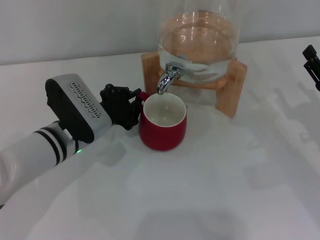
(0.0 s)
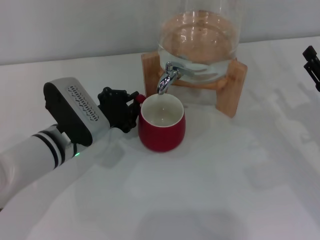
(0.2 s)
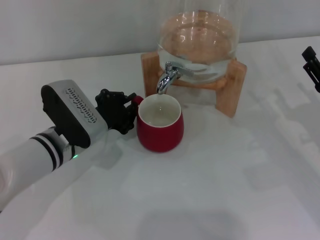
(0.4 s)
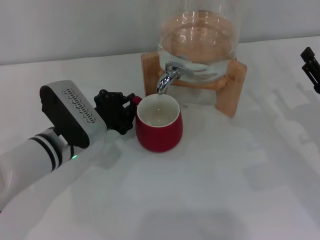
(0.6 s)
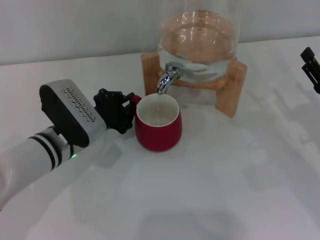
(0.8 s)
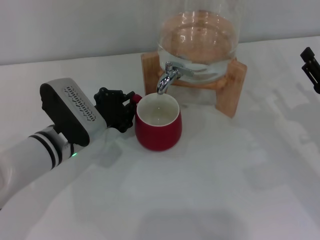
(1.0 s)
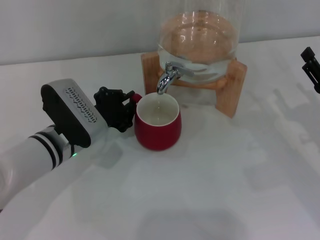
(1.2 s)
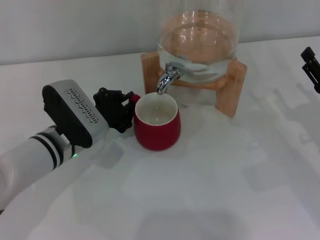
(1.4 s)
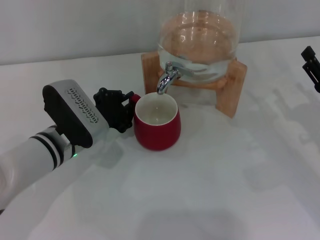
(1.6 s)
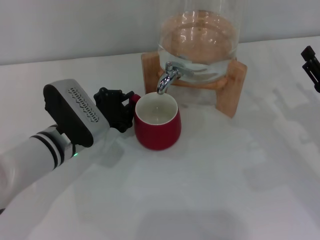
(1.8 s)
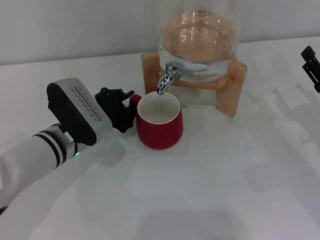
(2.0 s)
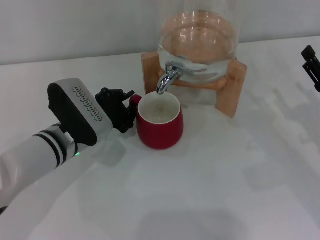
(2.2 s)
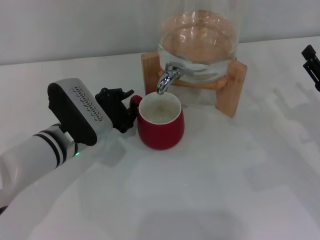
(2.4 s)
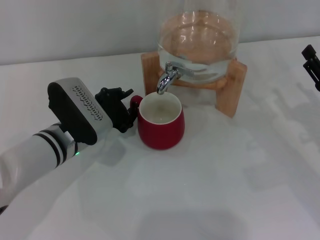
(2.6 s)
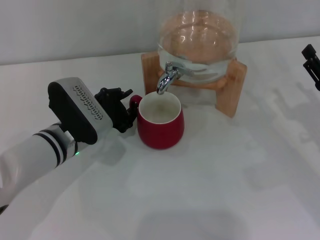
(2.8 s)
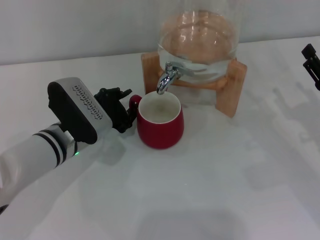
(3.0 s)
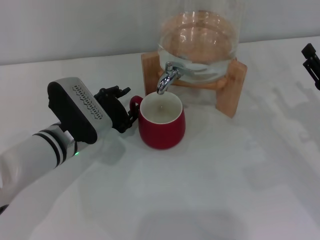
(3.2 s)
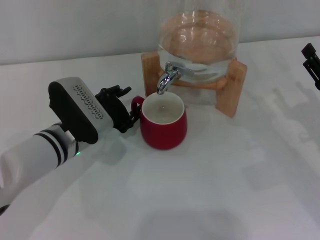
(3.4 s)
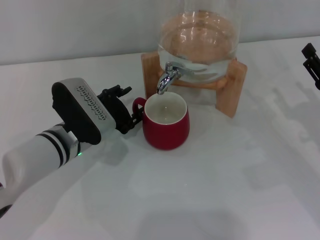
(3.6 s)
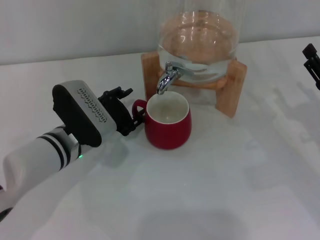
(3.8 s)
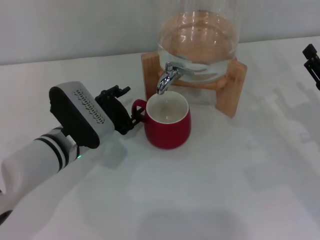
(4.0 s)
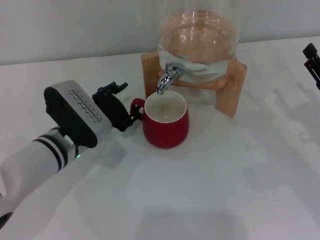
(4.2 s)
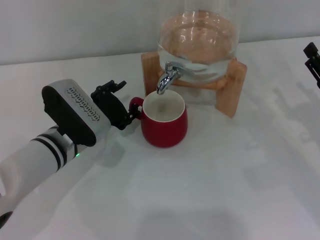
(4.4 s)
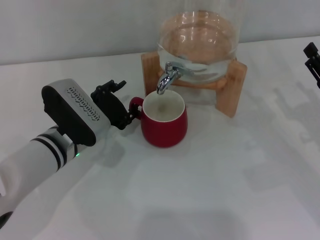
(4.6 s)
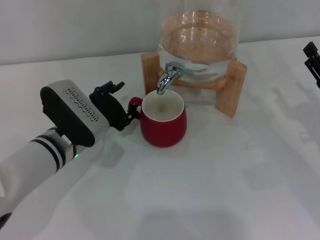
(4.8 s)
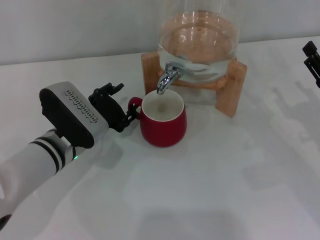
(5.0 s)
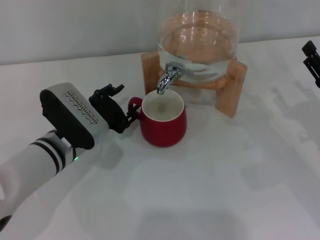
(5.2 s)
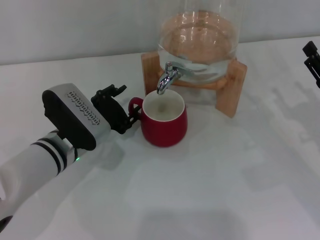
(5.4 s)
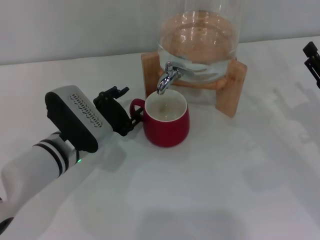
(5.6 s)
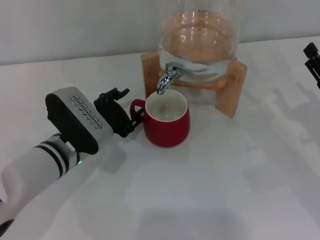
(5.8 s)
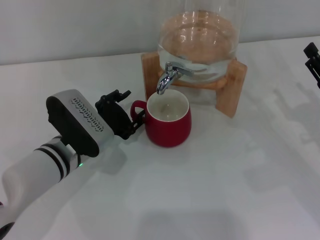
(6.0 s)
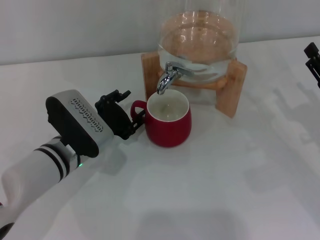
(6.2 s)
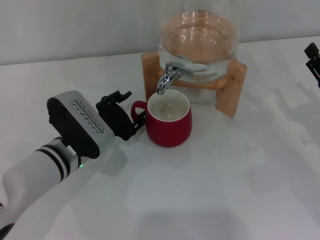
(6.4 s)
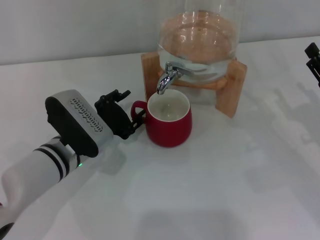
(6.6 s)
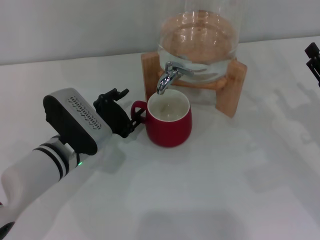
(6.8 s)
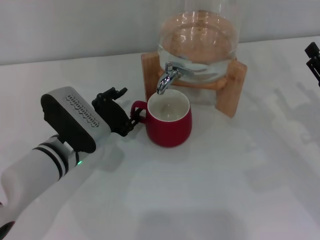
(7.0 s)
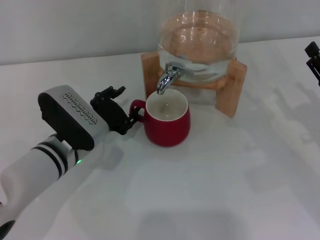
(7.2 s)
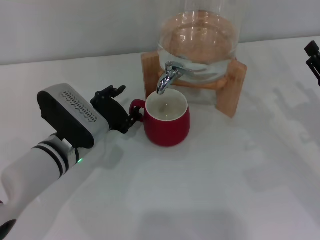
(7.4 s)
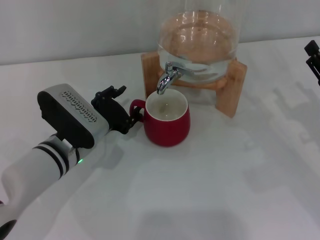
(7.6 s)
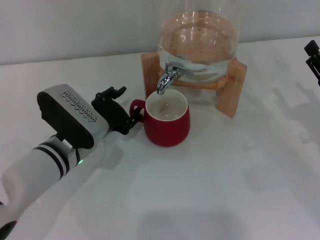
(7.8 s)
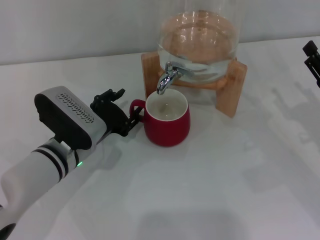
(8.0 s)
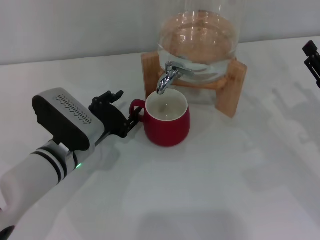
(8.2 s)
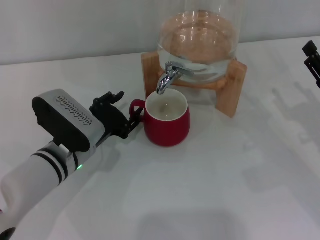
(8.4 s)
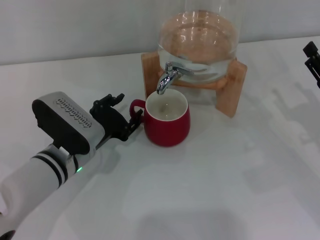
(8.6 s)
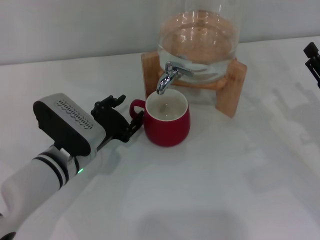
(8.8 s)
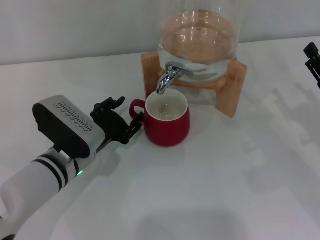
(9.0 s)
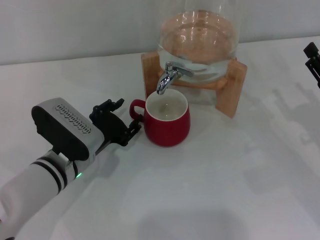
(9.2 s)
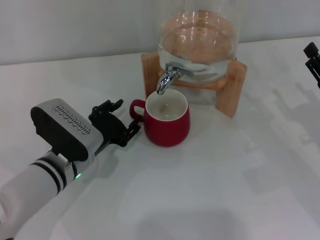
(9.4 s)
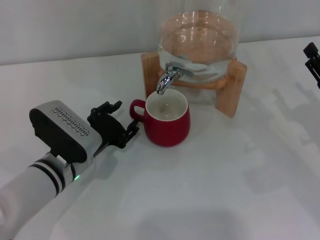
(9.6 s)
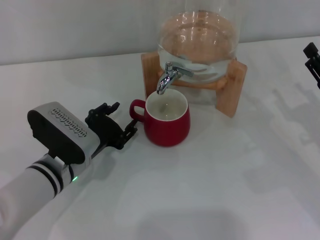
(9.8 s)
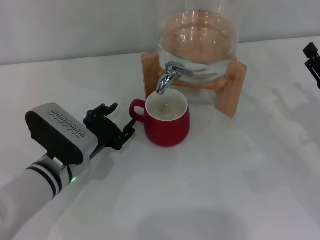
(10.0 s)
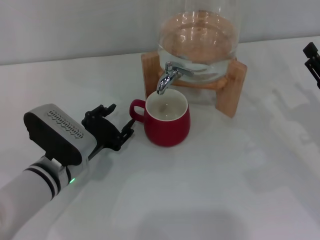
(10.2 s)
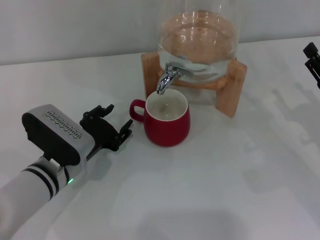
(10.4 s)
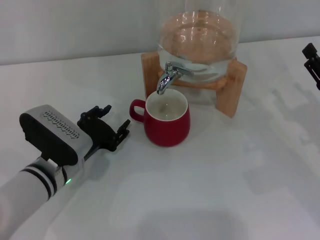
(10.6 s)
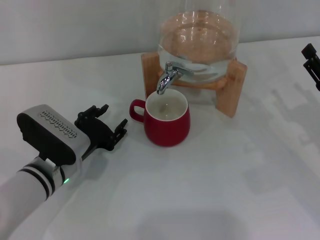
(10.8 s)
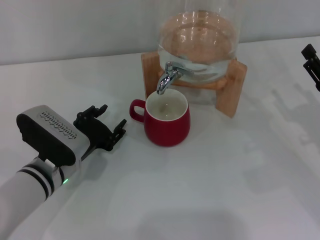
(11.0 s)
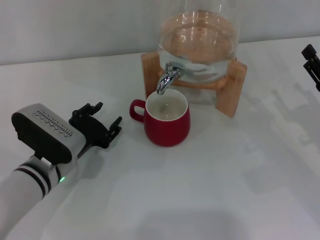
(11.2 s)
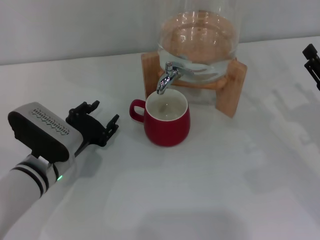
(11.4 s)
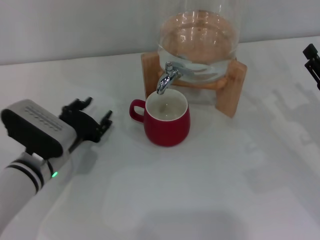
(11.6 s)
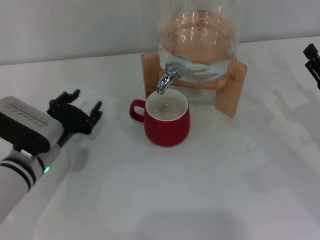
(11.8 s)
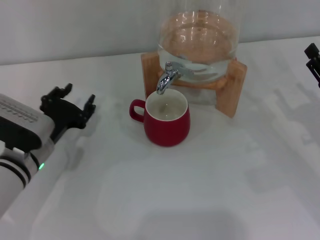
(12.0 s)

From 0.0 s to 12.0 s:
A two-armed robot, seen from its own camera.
Task of the whole recording: the left gripper pick up the red cup and place it horizontally under the faucet, the right gripper turn on the faucet to fill the cup, and then turn off the faucet.
Step, from 0.0 s to 11.6 s: Move the cup beneath the water dispenser nozzle with the left gripper.
From 0.0 s to 1.6 s: Neither gripper changes place.
From 1.6 s to 4.4 s: The two grippers keep their place.
From 4.4 s to 6.0 s: The two grippers keep their place.
From 6.0 s to 10.4 s: The grippers move only a little.
From 10.4 s to 12.0 s: The grippers stay close to where they were, moving slightly.

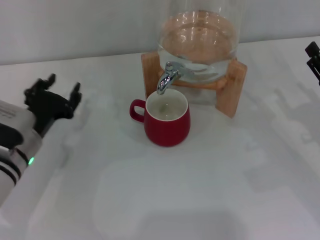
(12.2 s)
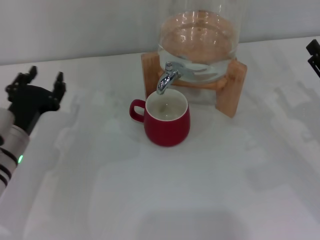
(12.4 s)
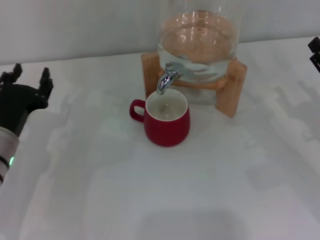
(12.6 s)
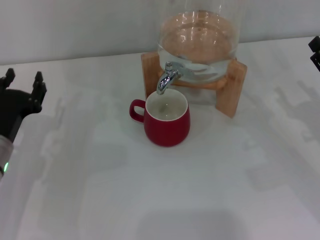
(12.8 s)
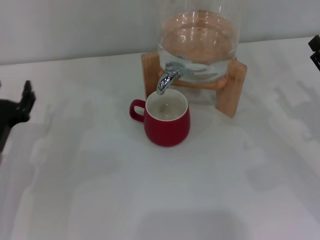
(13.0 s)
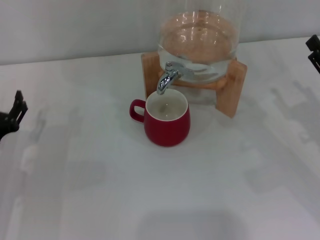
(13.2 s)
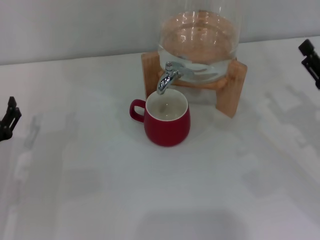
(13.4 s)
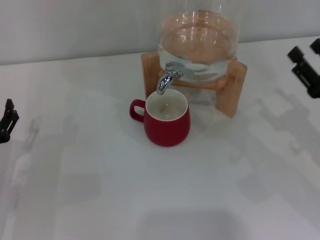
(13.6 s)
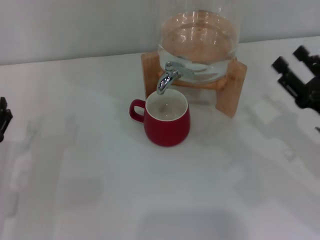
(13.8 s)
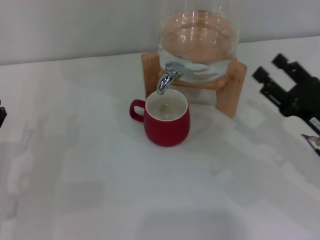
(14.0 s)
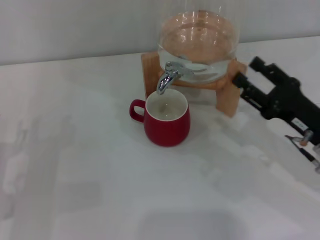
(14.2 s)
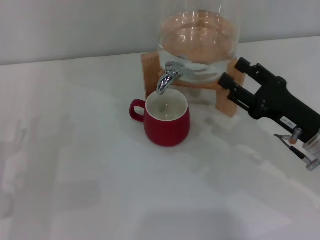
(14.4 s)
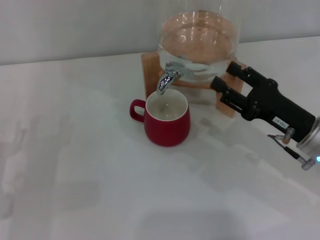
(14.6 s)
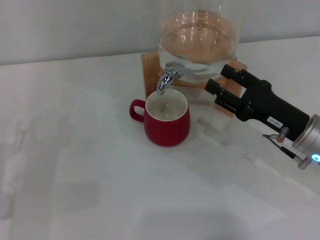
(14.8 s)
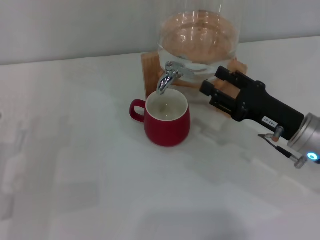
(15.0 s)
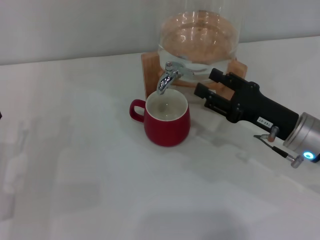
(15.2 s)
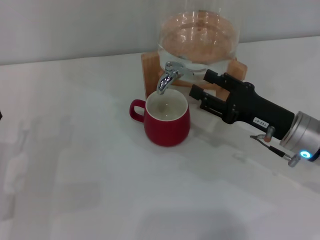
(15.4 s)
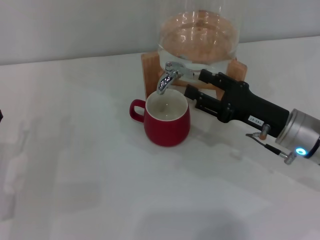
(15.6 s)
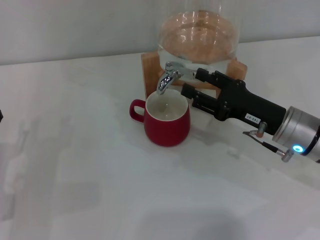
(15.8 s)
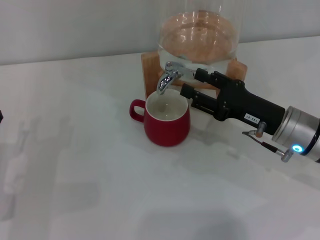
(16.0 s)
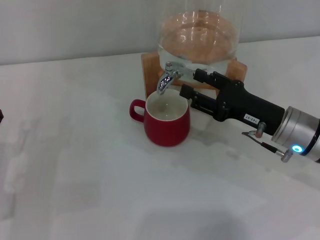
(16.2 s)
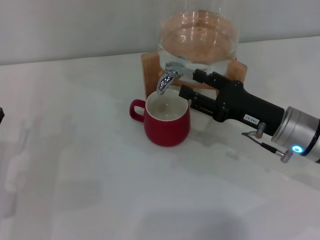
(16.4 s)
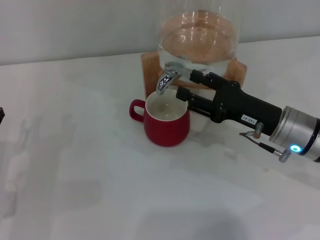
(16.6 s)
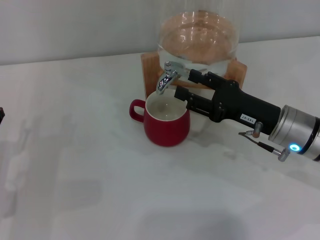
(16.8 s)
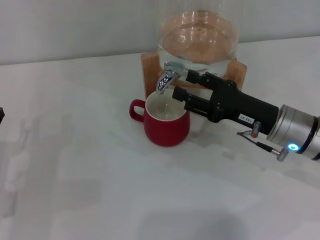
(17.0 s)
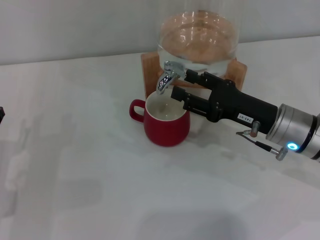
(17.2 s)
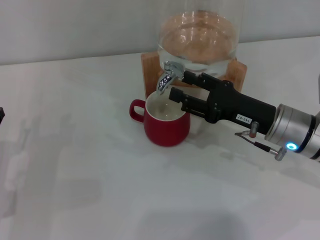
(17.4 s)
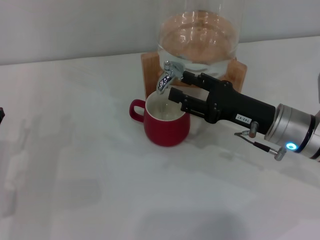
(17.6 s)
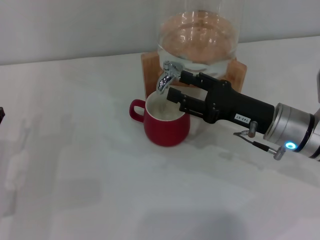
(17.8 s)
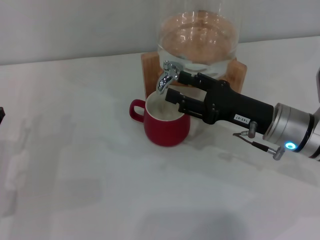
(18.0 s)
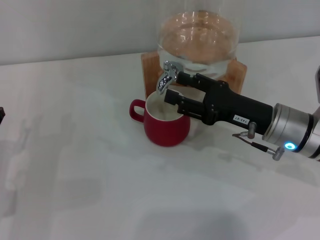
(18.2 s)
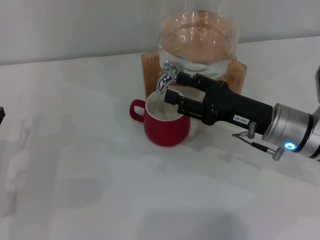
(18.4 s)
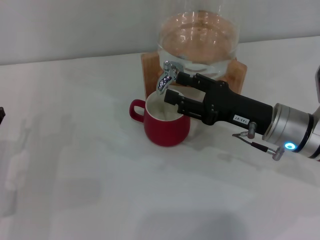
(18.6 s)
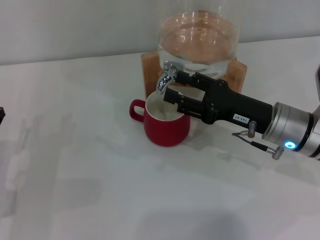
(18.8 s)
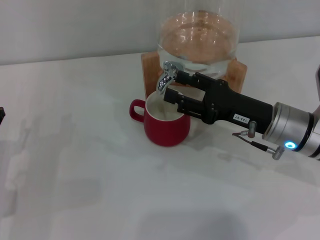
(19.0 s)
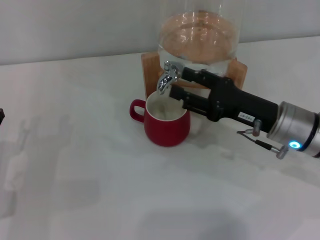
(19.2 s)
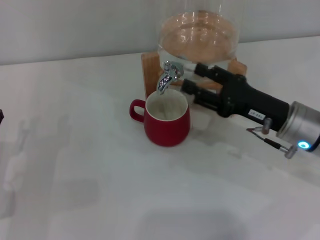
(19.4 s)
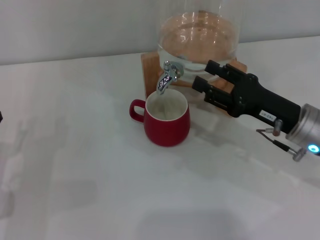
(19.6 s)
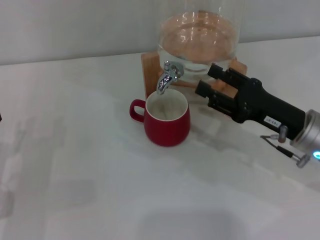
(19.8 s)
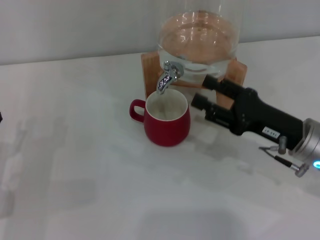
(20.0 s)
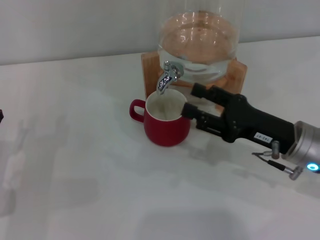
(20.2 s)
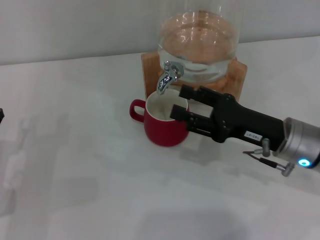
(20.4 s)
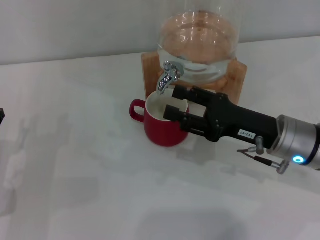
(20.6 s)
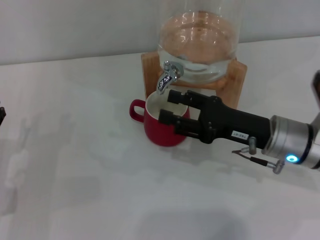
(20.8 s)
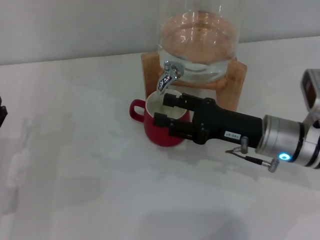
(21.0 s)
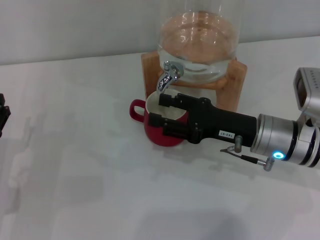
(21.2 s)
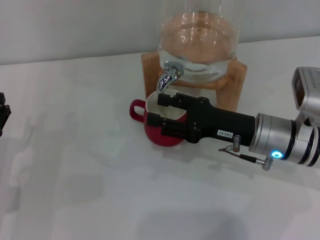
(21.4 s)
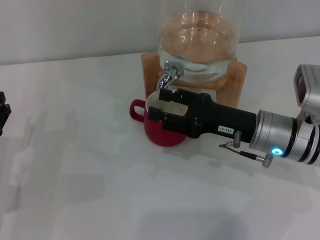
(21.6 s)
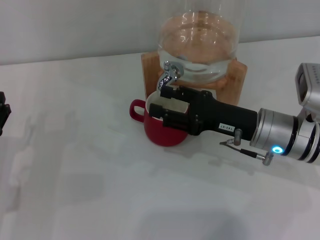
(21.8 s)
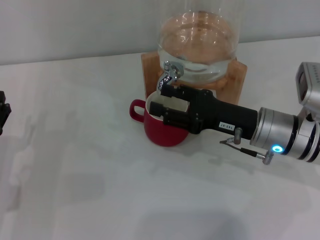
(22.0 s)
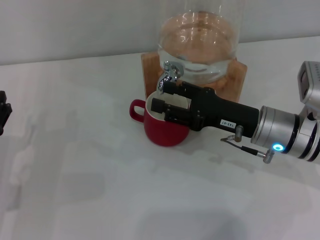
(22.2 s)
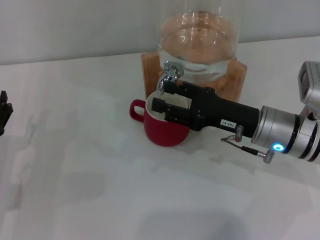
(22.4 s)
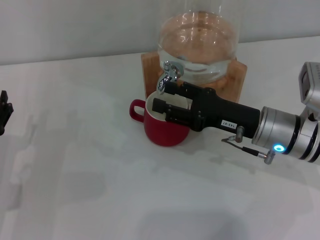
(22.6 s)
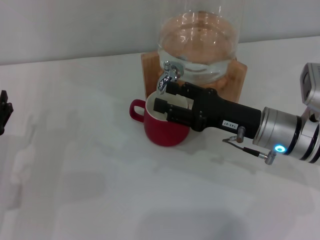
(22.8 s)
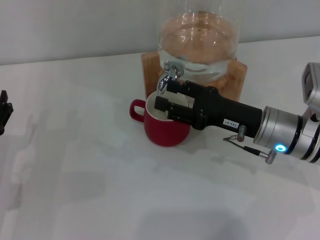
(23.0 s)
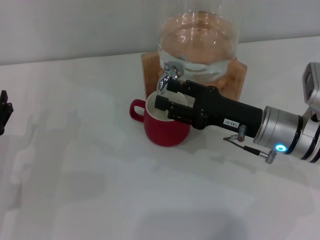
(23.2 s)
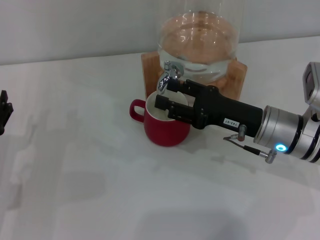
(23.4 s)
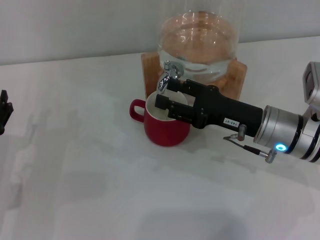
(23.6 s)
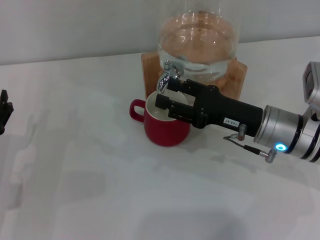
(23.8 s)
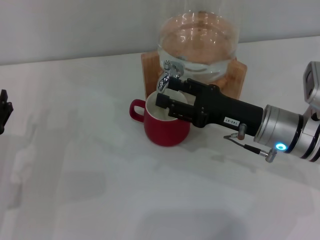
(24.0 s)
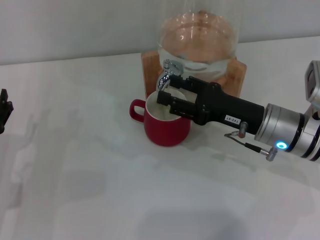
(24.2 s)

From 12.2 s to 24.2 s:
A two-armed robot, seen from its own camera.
Task of the whole recording: the left gripper pick up the red cup and place it horizontally under the faucet, the right gripper turn on the faucet to fill the cup, and then turn off the faucet.
Step, from 12.2 s to 21.8 s: Open the dispenser valve and fill the cup with water with the right gripper.
From 12.2 s to 13.8 s: The left gripper goes some 10 cm backward and to the left, and opens up.
From 13.8 s to 15.2 s: The right gripper moves to the left, about 5 cm.
From 15.2 s to 19.8 s: There are only small adjustments of the grippers.
From 19.8 s to 21.2 s: The right gripper moves to the left, approximately 5 cm.
From 21.2 s to 22.6 s: The two grippers keep their place.
From 22.6 s to 24.2 s: Both grippers stay about where they are.
